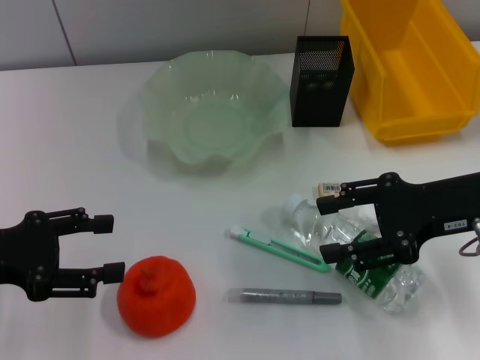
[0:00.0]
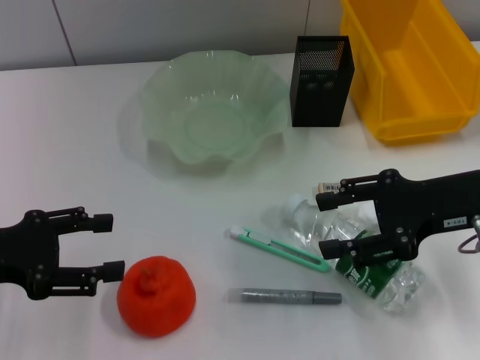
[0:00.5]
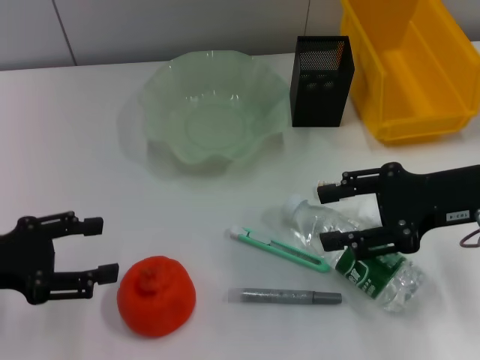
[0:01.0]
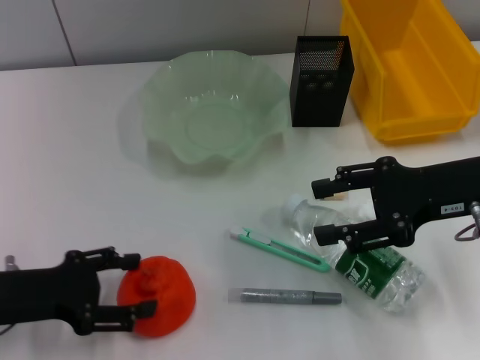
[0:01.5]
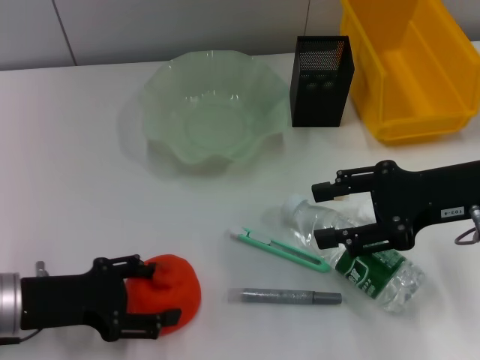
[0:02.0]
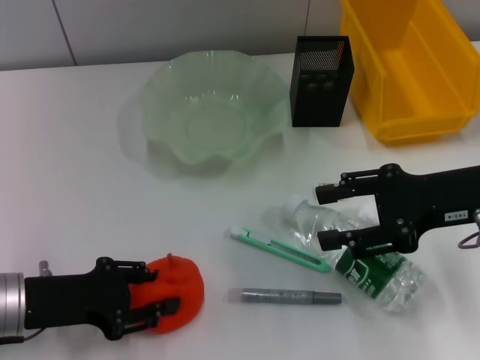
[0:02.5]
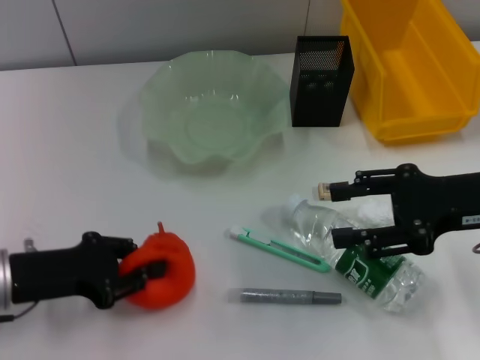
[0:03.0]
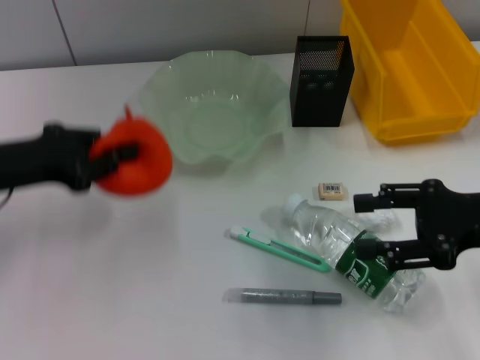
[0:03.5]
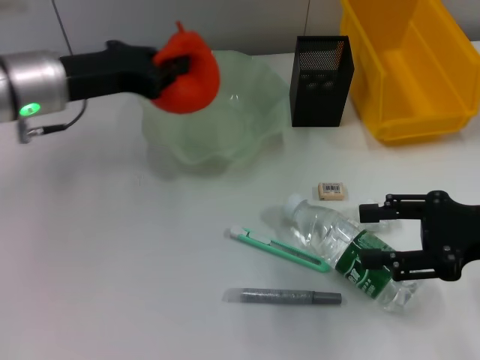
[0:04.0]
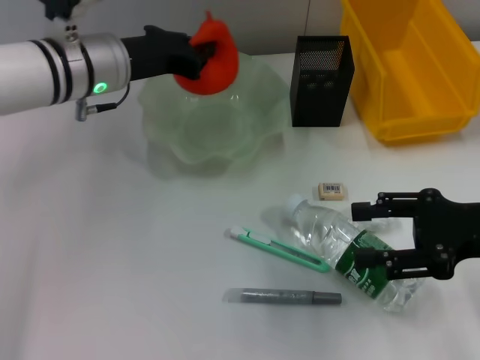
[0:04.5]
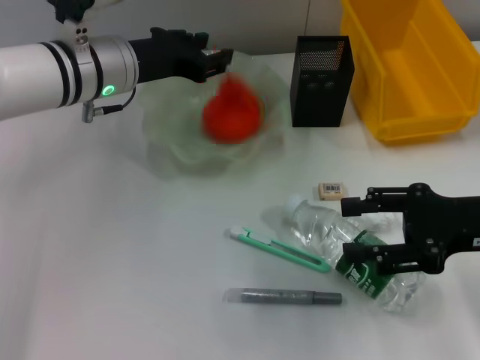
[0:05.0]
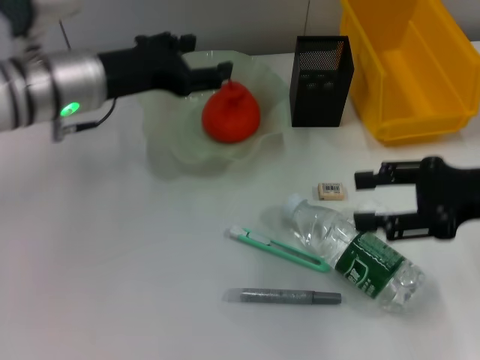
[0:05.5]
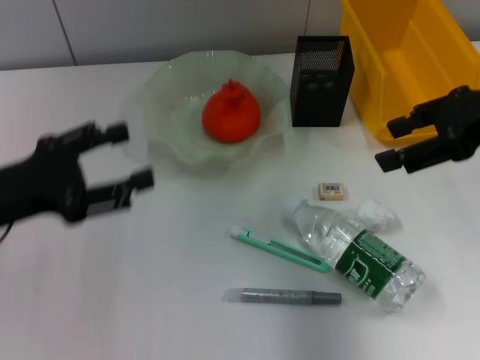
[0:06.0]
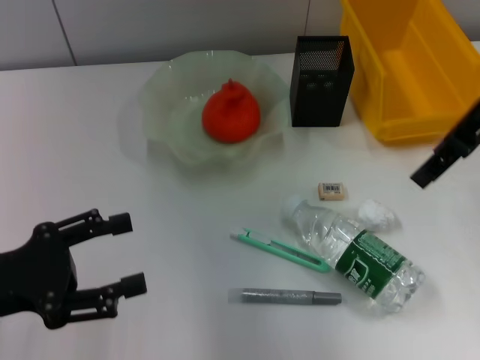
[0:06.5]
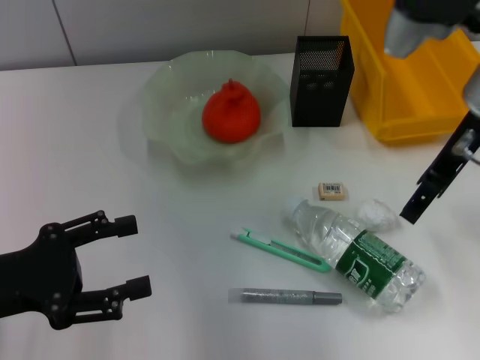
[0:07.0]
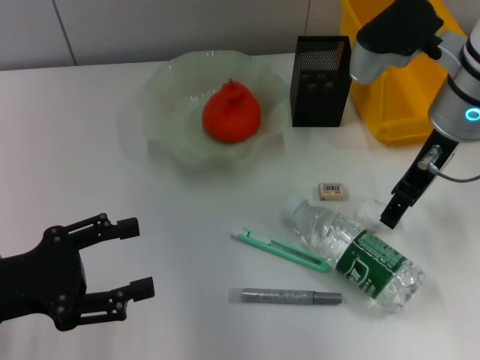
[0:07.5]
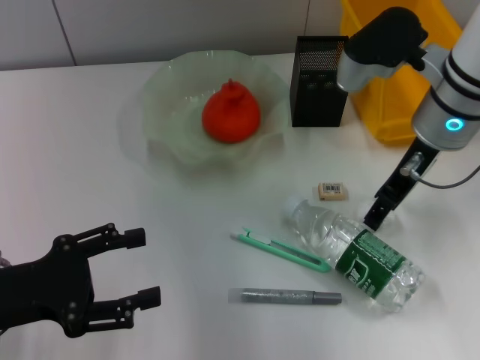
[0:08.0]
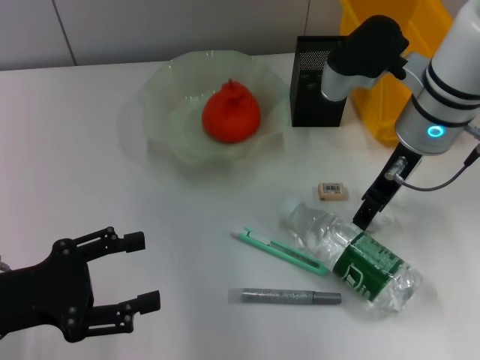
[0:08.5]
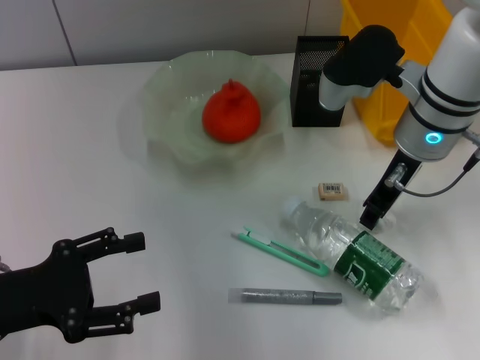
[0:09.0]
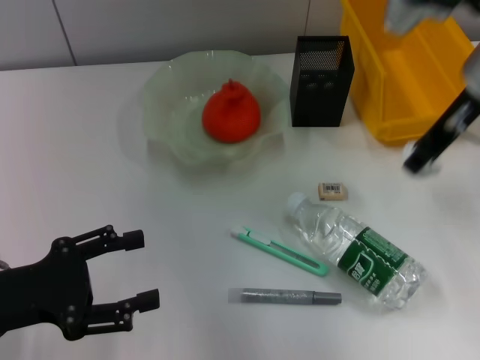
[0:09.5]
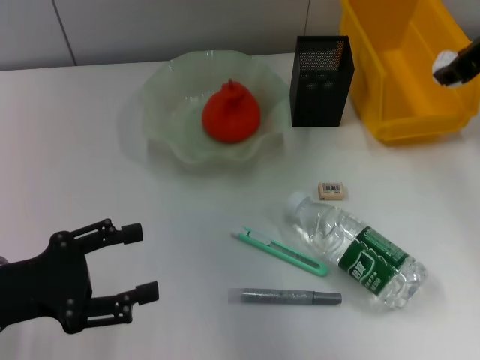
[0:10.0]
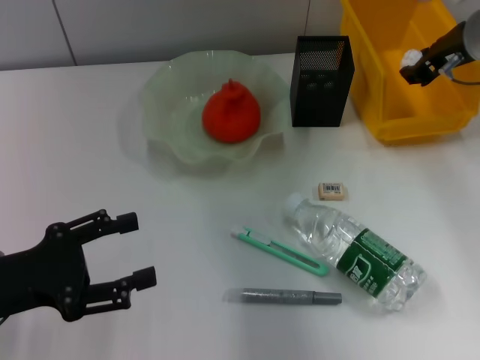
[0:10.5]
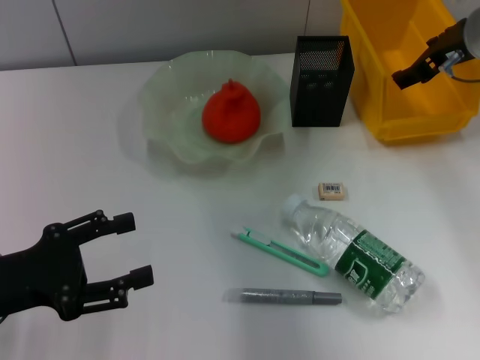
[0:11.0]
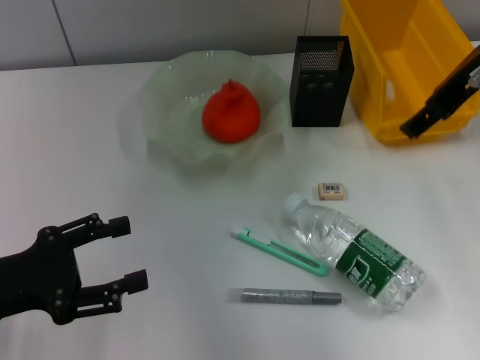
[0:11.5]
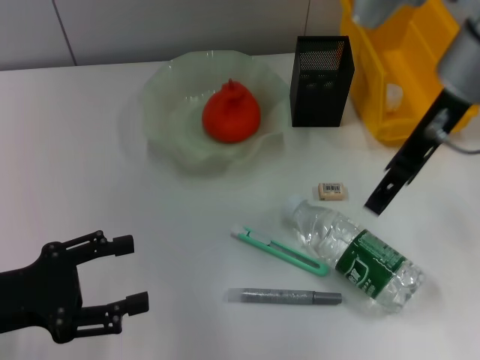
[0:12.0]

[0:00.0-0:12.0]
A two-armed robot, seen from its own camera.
Step, 0:00.0 to 0:02.5: Grab the orange with the left hand.
Step, 0:03.0 to 0:05.5: Place the orange into the fruit bowl with the left hand.
Step, 0:06.0 to 0:09.0: Grab the paper ball with the right hand.
Step, 0:09.5 to 0:11.0: Place the paper ball into the trash can with the right hand.
0:00.0 to 0:02.0: The left gripper shifts roughly 5 cm downward.
0:02.0 to 0:04.0: The left gripper goes some 15 cm forward and upward, and closes; the right gripper ends up approximately 5 cm from where it was.
0:04.0 to 0:06.0: The right gripper travels upward and forward by some 15 cm. The left gripper travels backward and to the left by approximately 15 cm, and opens.
0:06.0 to 0:08.0: The left gripper shifts by roughly 5 cm. The right gripper heads to the left, downward and forward, covering about 15 cm.
0:08.0 to 0:10.0: The right gripper travels upward and to the right by approximately 10 cm, and closes.
0:10.0 to 0:12.0: The right gripper shifts about 10 cm to the left, and opens.

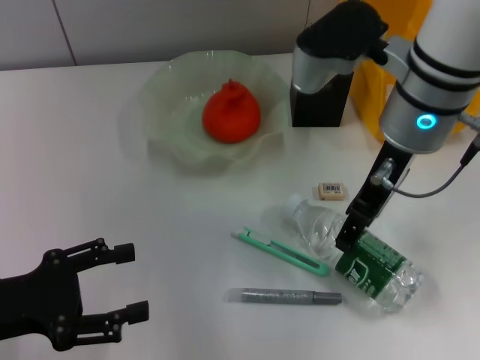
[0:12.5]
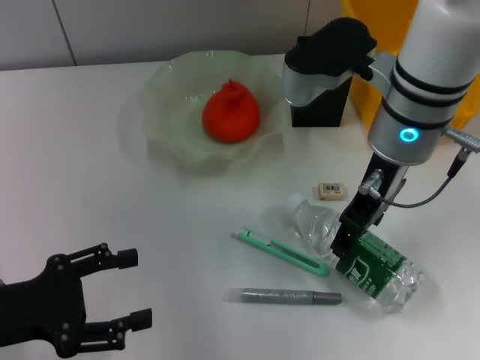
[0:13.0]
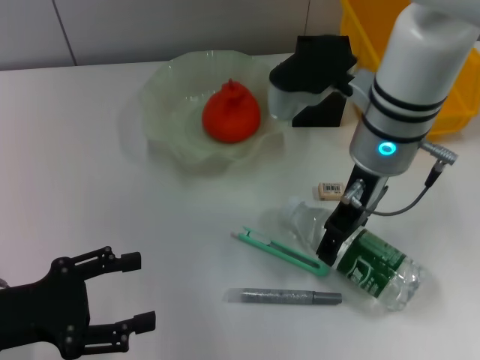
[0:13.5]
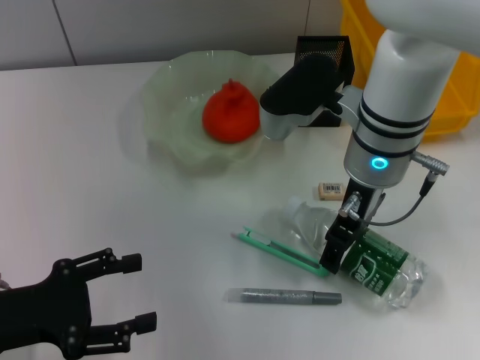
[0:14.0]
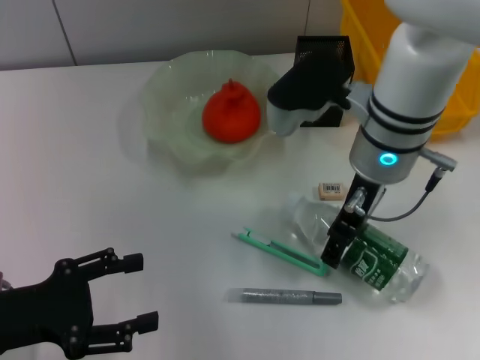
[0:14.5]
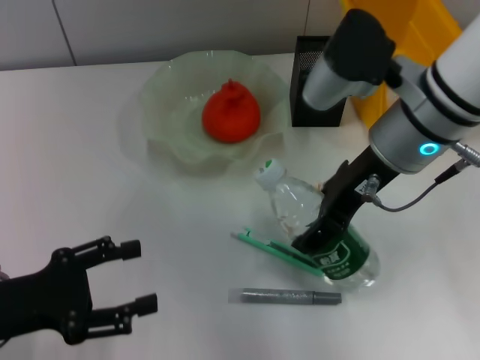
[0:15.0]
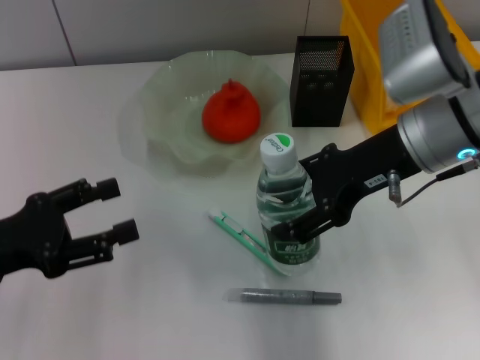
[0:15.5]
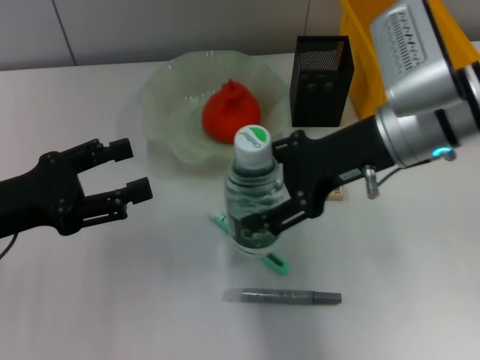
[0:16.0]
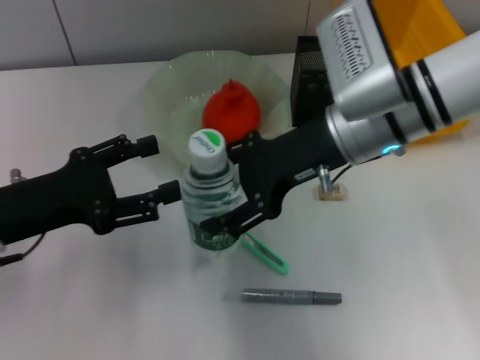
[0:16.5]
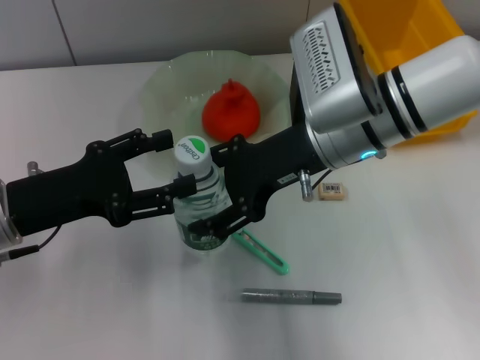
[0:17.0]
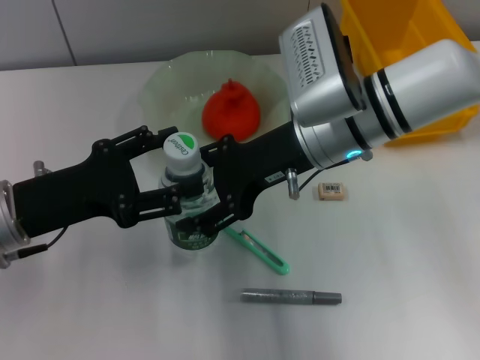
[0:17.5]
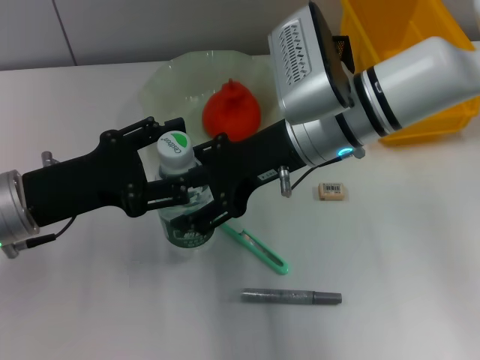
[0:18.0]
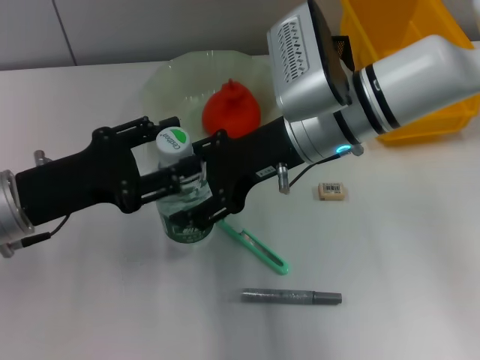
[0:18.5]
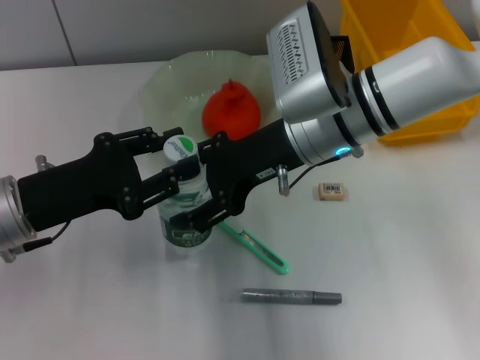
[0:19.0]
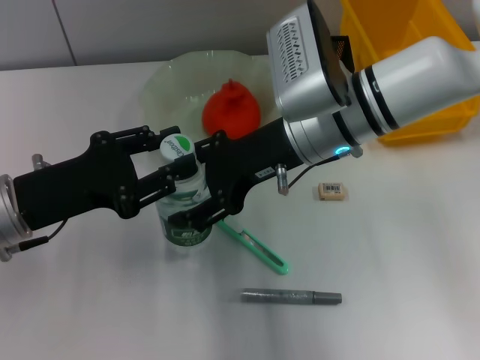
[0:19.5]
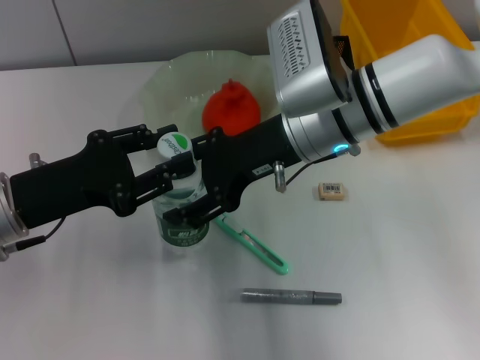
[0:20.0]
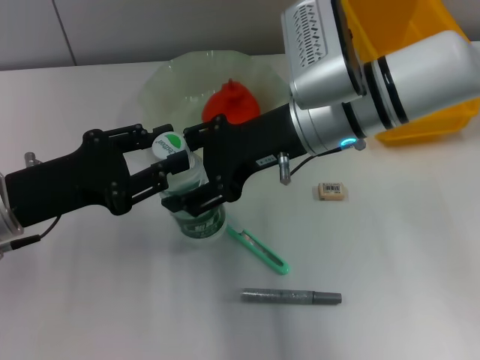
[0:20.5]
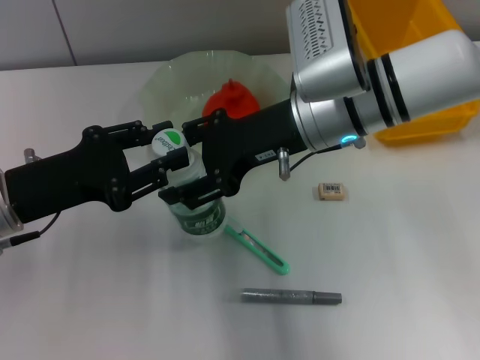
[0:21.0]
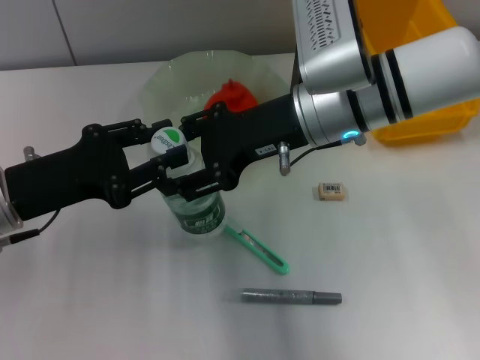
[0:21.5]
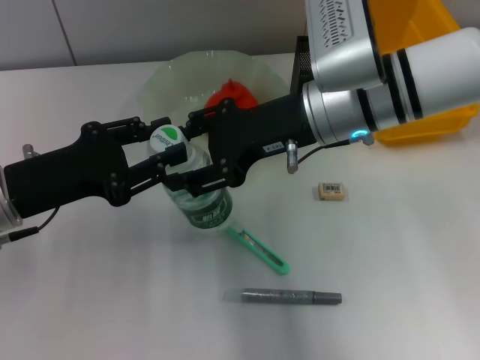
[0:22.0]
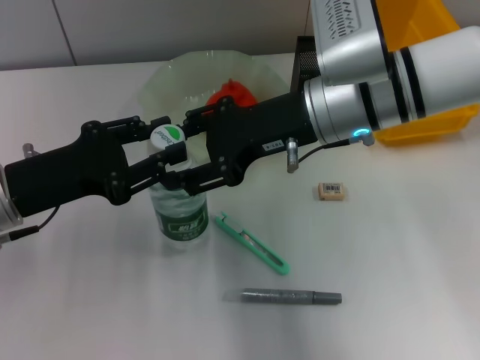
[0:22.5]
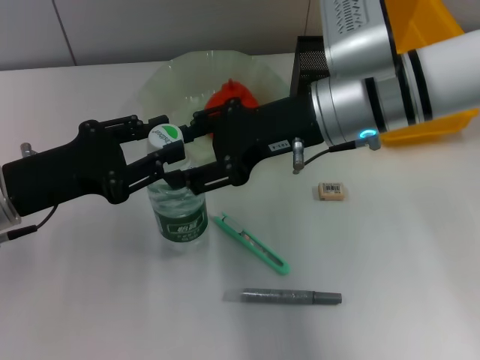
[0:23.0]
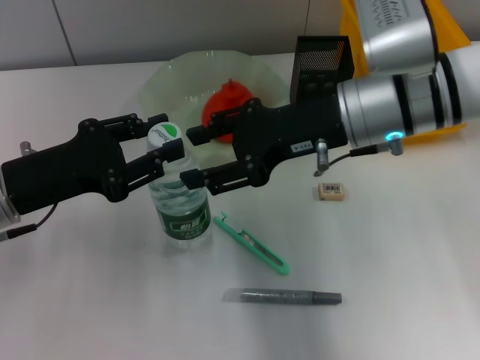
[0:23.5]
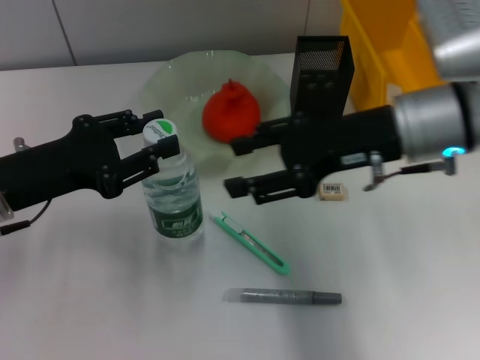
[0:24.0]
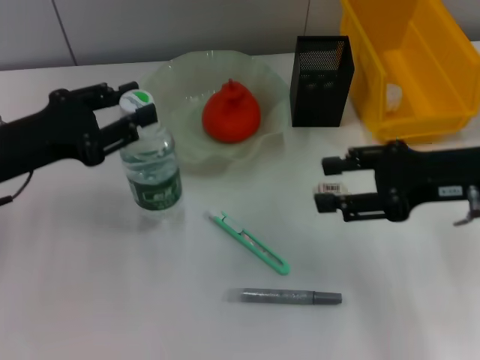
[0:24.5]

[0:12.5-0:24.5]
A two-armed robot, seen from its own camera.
Step, 0:12.5 to 0:14.0: Grab the water bottle with the right hand.
Step, 0:14.5 to 0:23.0: Pass the water bottle from the right hand to the left hand.
0:12.5 to 0:14.5: The grippers make only small movements.
0:14.5 to 0:16.5: The left gripper moves forward, about 5 cm.
0:18.5 to 0:20.5: The left gripper closes its fingers.
0:20.5 to 0:22.5: The grippers stay close to where they were, moving slightly.
0:22.5 to 0:24.5: The right gripper is displaced to the right and backward by approximately 15 cm.

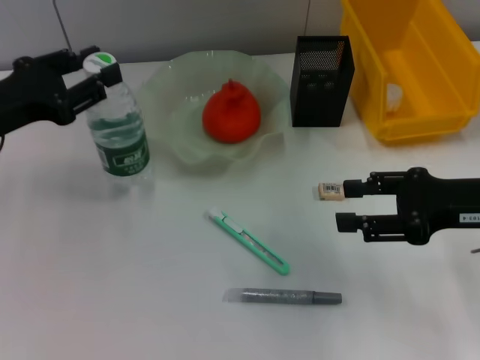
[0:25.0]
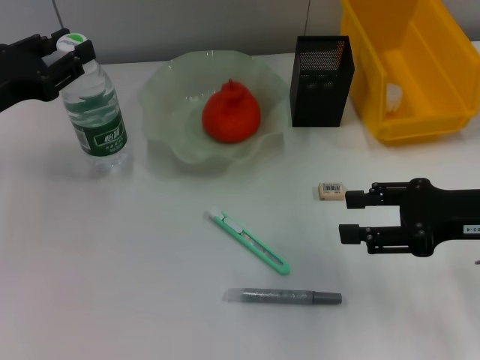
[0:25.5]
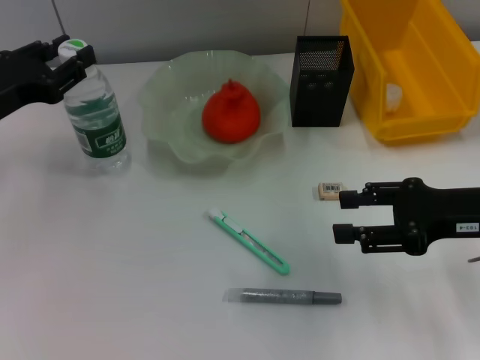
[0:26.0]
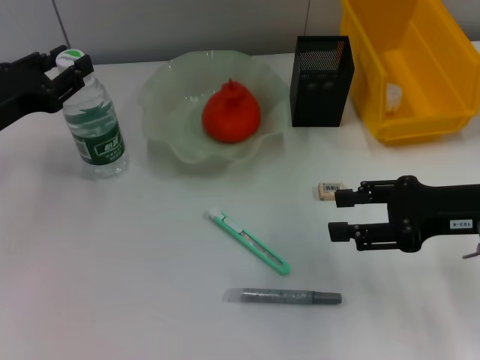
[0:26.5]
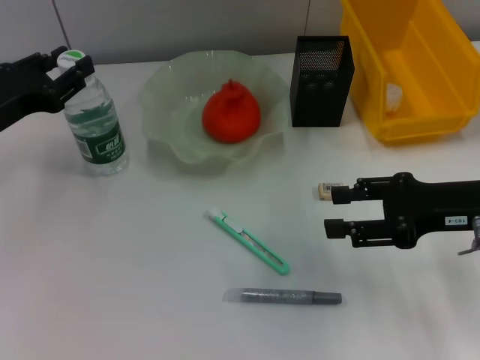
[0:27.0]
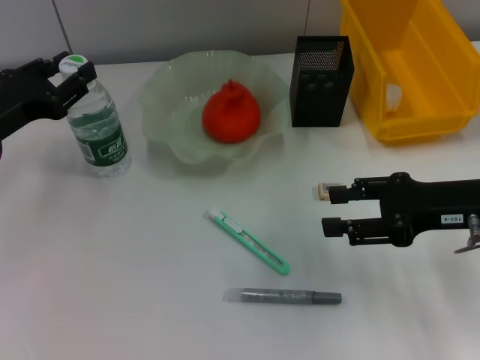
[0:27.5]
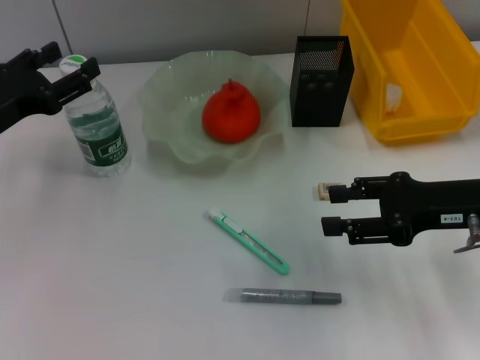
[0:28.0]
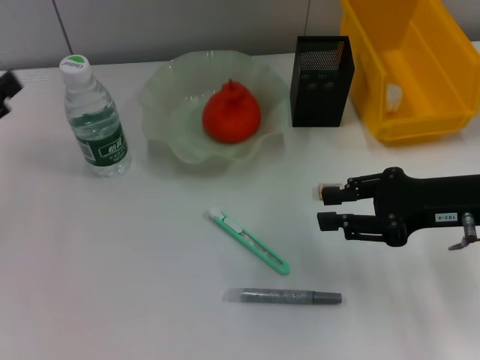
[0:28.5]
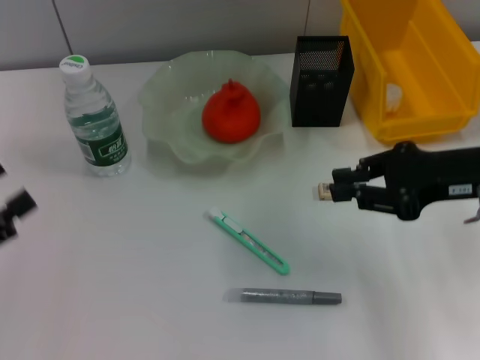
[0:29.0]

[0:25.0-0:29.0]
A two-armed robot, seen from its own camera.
Step, 0:25.0 to 0:28.0: Place the water bottle on the table with the left hand.
0:25.0 to 0:27.0: The grippers stay close to where they were, moving slightly.
0:27.0 to 0:29.0: The right gripper closes its fingers. Meanwhile the left gripper shifts approximately 15 cm backward and to the left.
